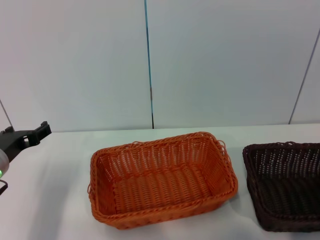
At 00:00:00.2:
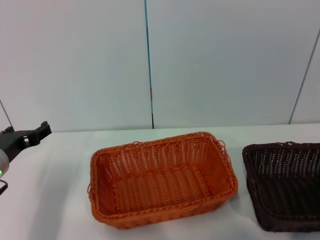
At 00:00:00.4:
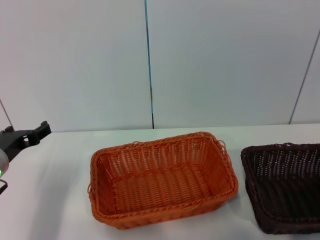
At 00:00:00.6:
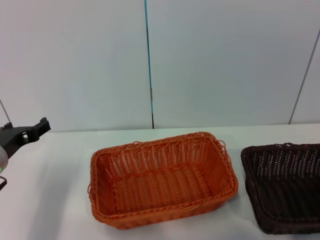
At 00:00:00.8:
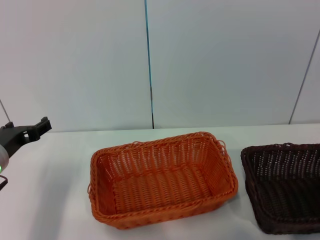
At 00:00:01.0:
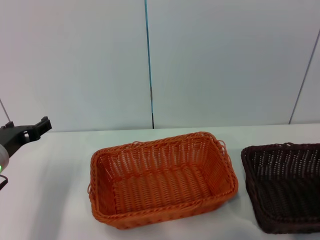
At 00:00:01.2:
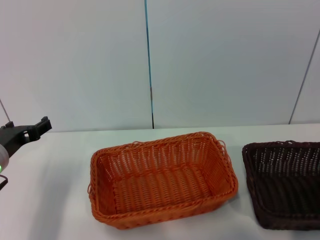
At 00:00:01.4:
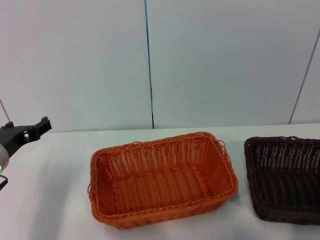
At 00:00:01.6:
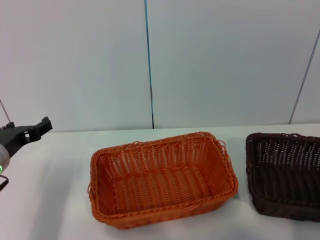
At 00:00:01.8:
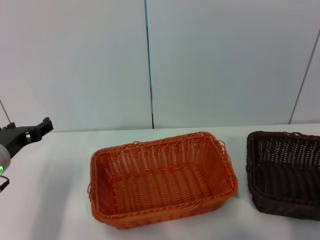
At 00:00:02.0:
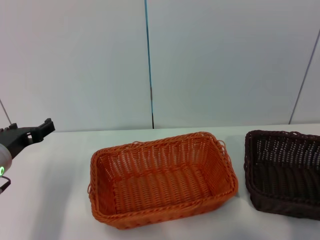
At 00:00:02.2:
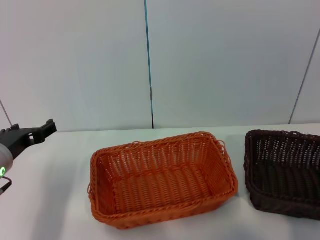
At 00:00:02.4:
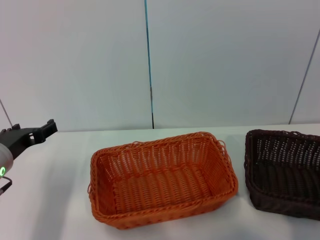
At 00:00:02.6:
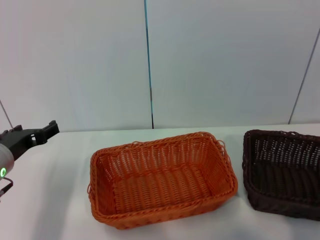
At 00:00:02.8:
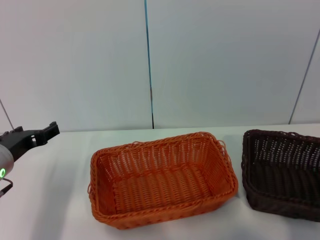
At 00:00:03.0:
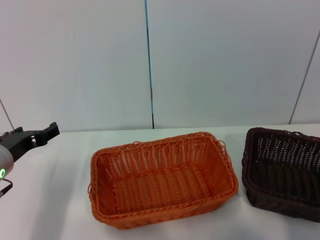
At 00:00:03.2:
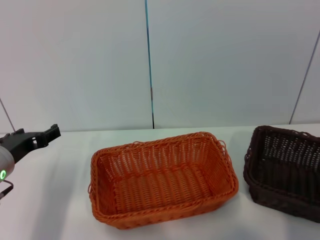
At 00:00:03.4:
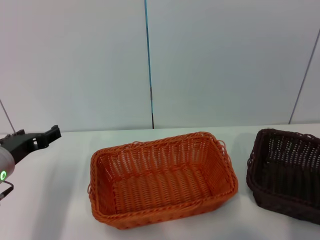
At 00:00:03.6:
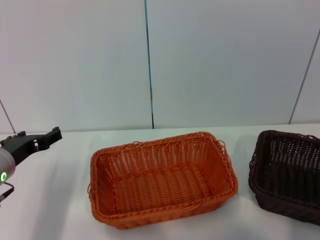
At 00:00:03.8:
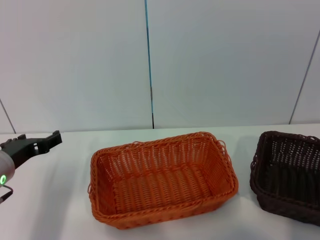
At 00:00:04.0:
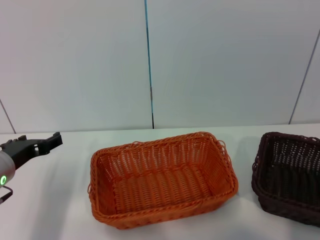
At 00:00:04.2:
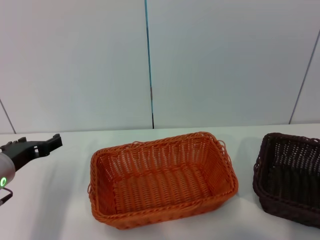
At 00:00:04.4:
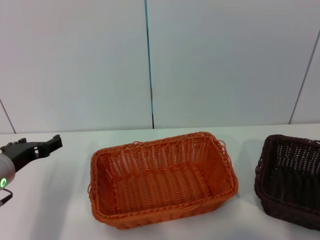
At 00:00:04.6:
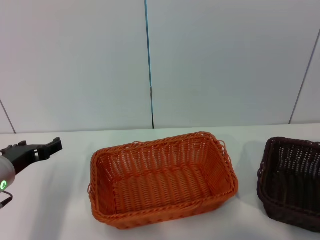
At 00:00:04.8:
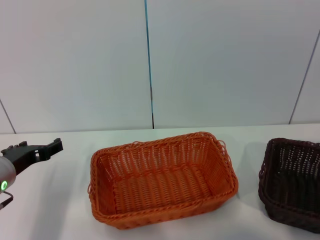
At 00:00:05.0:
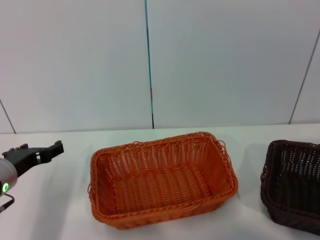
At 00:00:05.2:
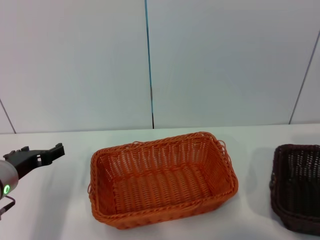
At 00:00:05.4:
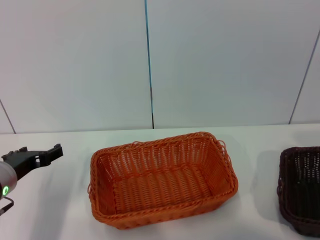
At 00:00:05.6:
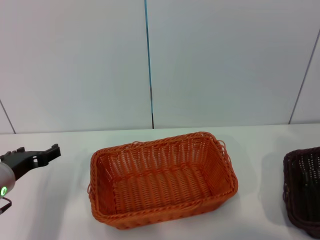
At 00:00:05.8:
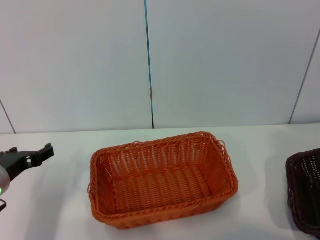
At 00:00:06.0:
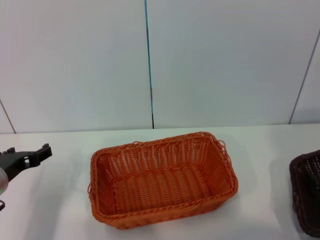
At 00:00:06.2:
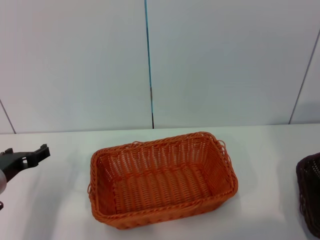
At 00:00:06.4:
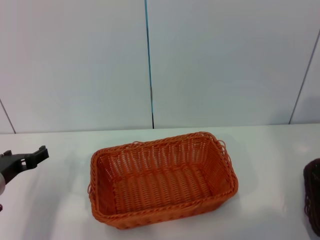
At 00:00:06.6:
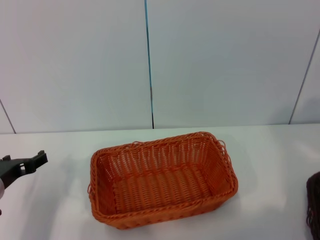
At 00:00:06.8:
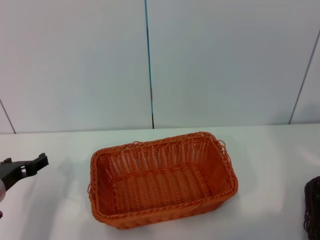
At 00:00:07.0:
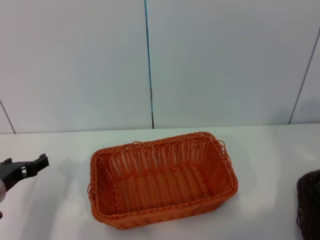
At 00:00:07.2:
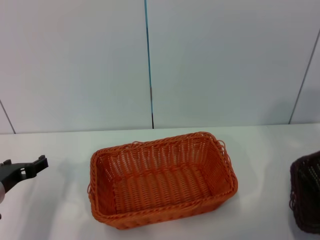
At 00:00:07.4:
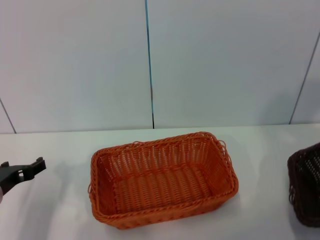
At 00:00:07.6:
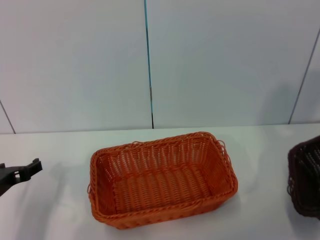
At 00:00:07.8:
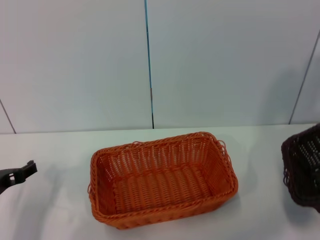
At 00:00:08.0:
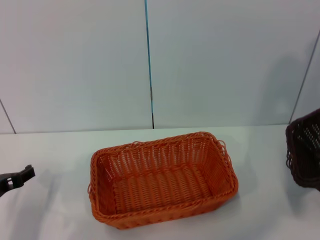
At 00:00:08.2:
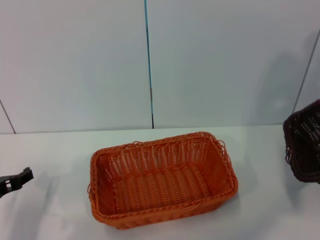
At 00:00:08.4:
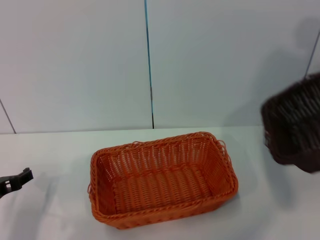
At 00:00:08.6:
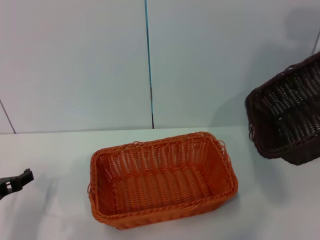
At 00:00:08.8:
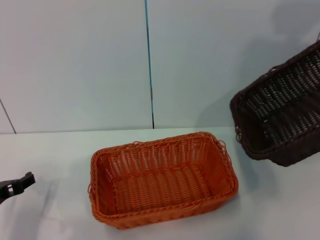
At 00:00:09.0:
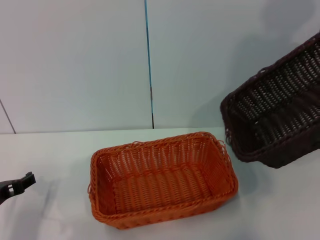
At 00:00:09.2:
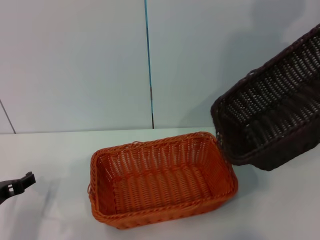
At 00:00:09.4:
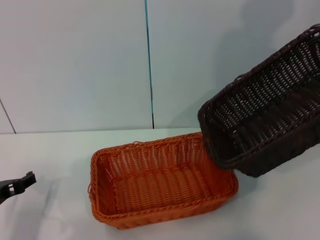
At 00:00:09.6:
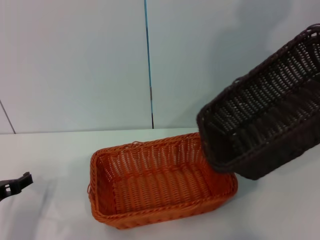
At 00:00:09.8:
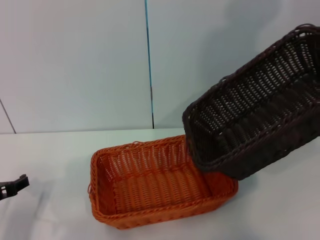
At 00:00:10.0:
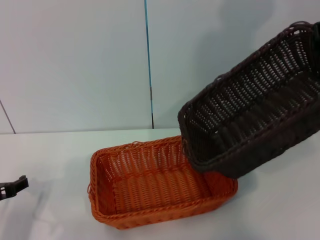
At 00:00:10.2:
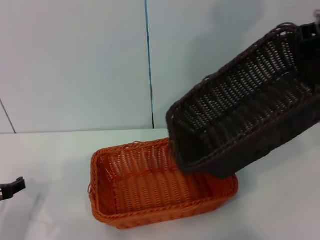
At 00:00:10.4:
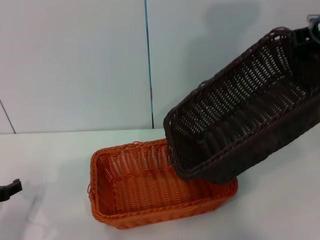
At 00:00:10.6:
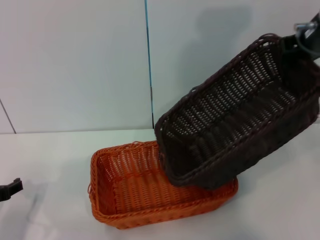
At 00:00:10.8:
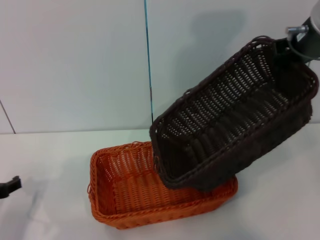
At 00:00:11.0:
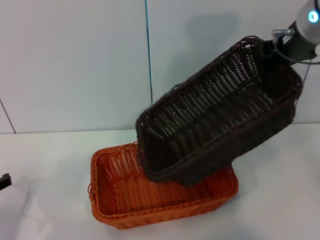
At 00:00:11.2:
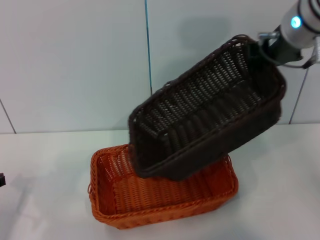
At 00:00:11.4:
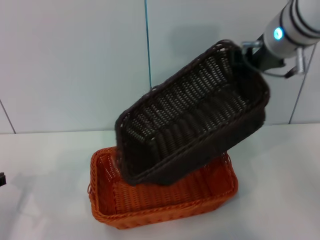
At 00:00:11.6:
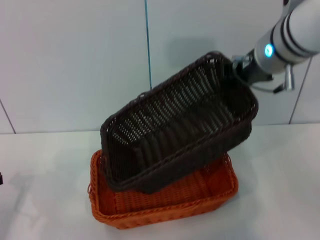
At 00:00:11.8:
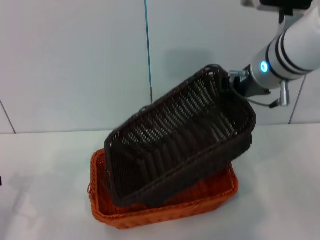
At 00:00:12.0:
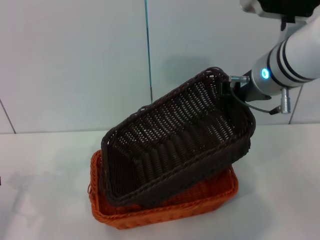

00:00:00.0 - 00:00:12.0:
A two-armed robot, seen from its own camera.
Step, 00:00:00.0 - 00:00:03.8: Pick up the dark basket with the right gripper.
00:00:00.0 - 00:00:01.6: The right gripper closes its fingers.
00:00:01.6 - 00:00:04.4: The grippers stay close to where they were, moving slightly.
00:00:04.4 - 00:00:06.0: The right gripper shifts some 10 cm upward.
00:00:06.0 - 00:00:07.6: The right gripper is displaced upward by some 10 cm.
00:00:07.6 - 00:00:09.0: The right gripper moves to the left, forward and upward, roughly 15 cm.
00:00:09.0 - 00:00:10.4: The right gripper is displaced to the left by about 10 cm.
00:00:10.4 - 00:00:12.0: The right gripper shifts approximately 10 cm downward and to the left.

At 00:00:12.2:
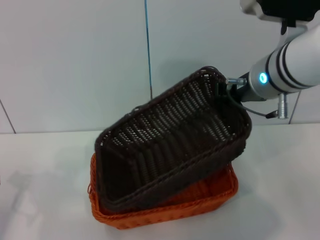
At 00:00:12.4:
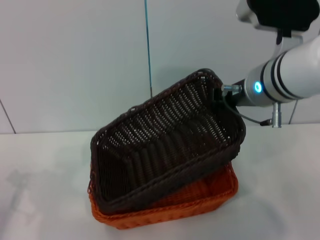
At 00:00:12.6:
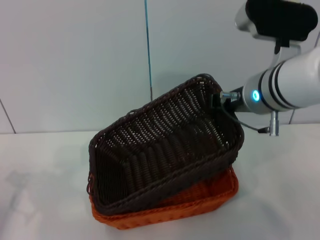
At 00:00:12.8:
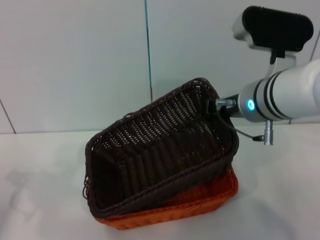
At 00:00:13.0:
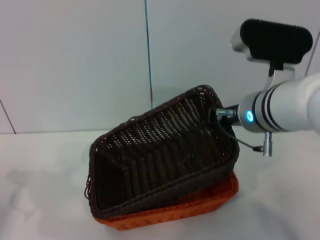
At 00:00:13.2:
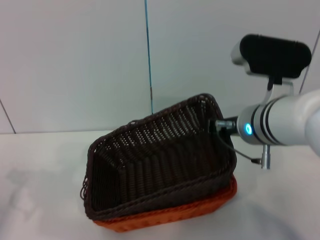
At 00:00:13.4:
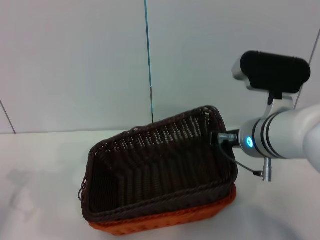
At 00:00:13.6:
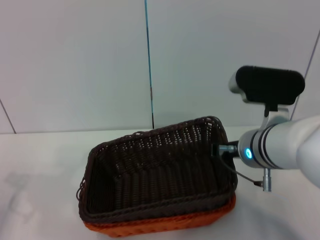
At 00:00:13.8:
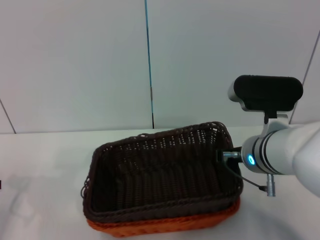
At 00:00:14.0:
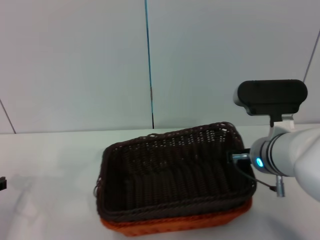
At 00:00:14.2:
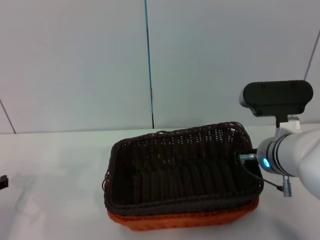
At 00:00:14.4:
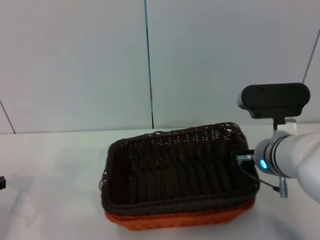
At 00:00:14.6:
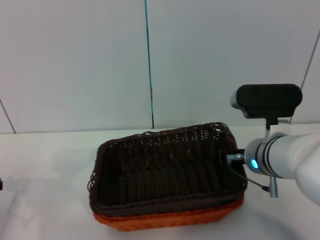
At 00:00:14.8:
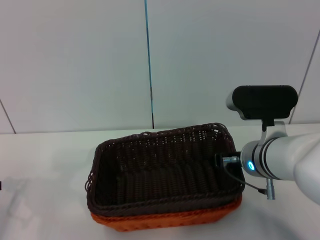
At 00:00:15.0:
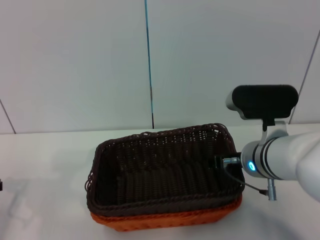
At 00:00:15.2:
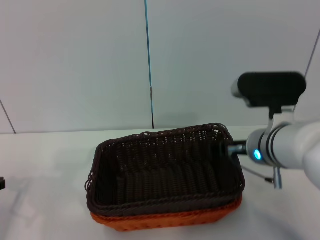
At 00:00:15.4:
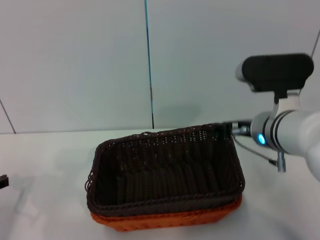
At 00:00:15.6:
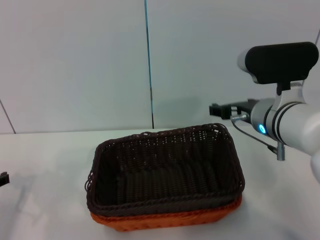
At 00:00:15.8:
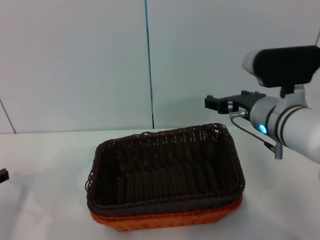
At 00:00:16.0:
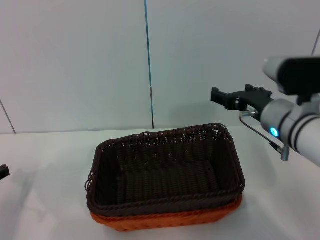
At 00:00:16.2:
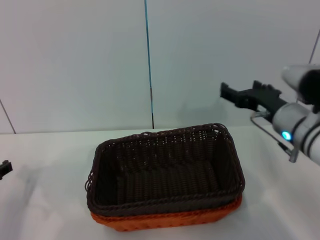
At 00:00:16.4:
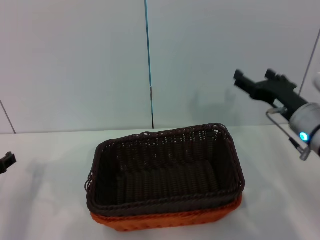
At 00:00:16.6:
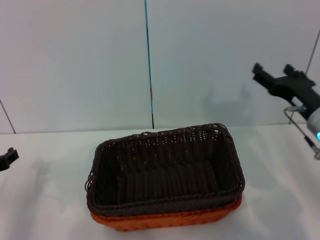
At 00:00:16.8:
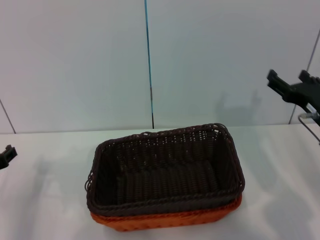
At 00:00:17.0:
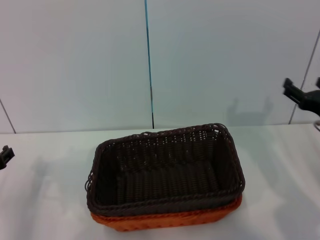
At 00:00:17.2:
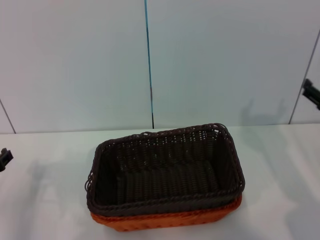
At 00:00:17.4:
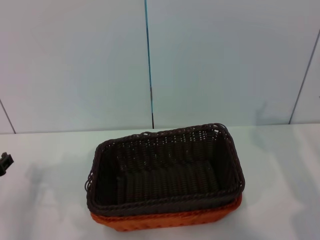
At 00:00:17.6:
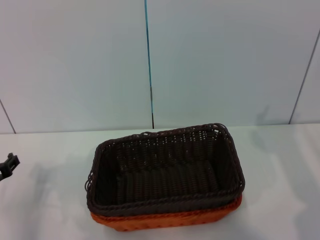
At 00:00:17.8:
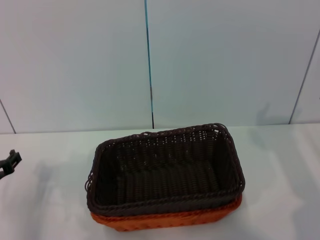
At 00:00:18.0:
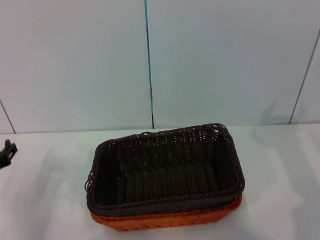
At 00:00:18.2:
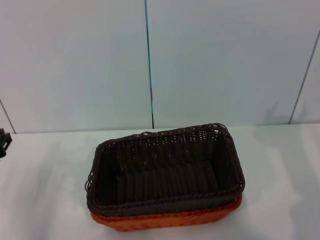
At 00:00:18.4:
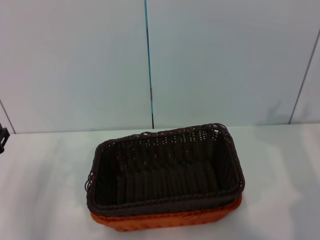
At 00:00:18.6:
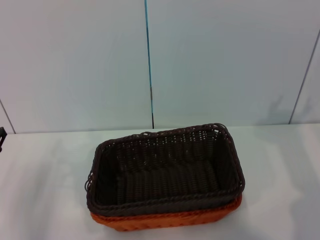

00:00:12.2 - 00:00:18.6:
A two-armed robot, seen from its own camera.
Step, 00:00:12.2 - 00:00:14.8: Place the dark basket on the light basket with the right gripper.
00:00:12.2 - 00:00:13.8: The right gripper is displaced downward by roughly 10 cm.
00:00:13.8 - 00:00:15.4: The right gripper opens up.
00:00:15.4 - 00:00:17.0: The right gripper travels to the right and downward by approximately 15 cm.
00:00:17.0 - 00:00:18.6: The right gripper shifts some 5 cm to the right.
